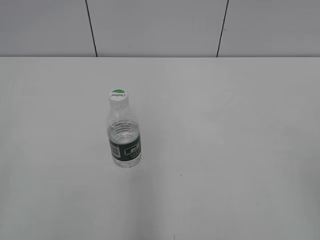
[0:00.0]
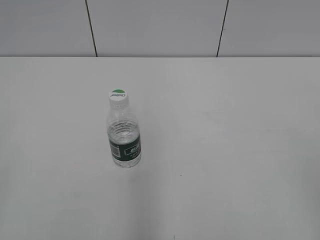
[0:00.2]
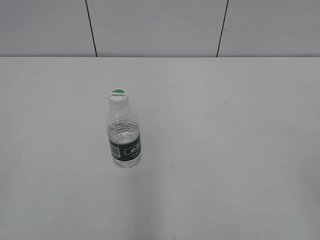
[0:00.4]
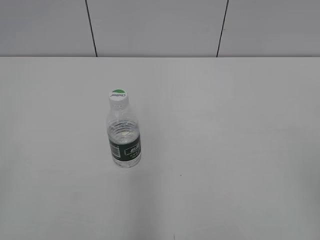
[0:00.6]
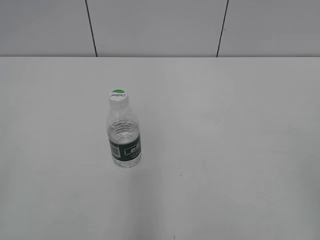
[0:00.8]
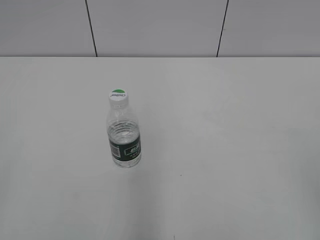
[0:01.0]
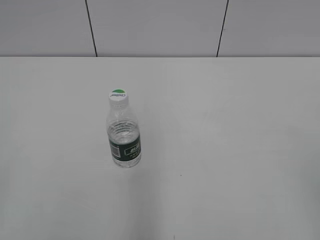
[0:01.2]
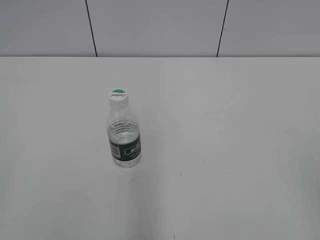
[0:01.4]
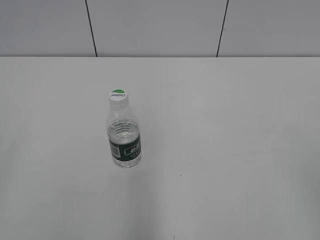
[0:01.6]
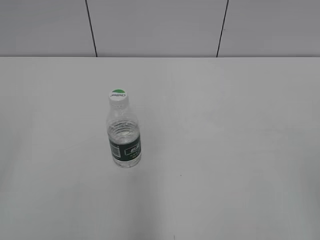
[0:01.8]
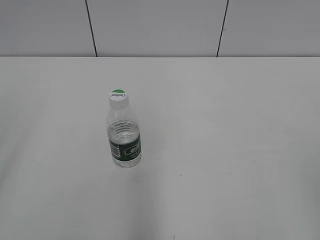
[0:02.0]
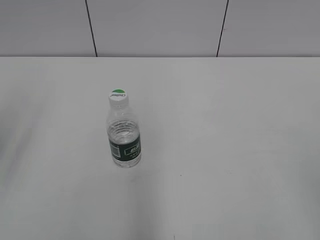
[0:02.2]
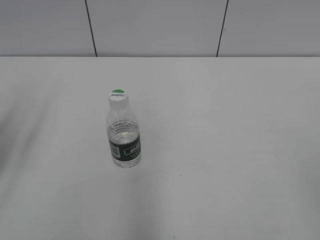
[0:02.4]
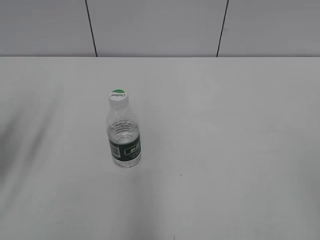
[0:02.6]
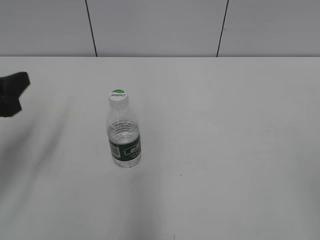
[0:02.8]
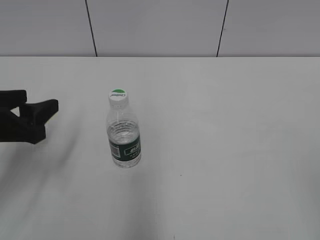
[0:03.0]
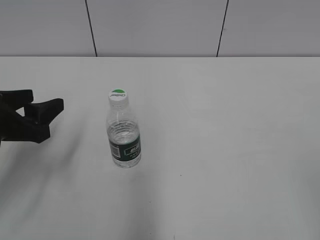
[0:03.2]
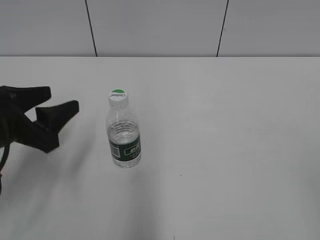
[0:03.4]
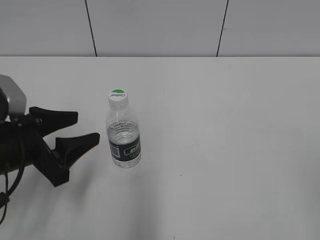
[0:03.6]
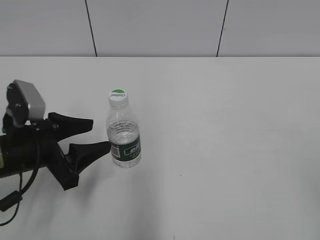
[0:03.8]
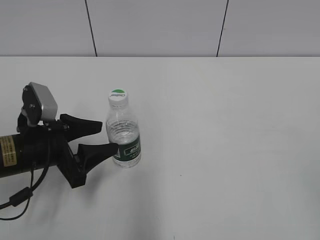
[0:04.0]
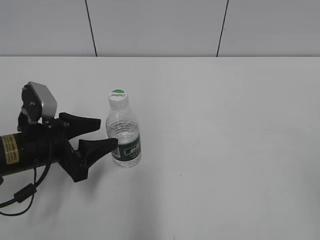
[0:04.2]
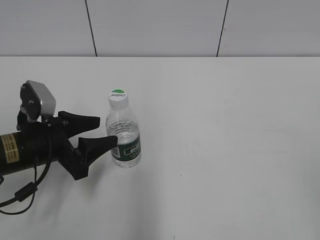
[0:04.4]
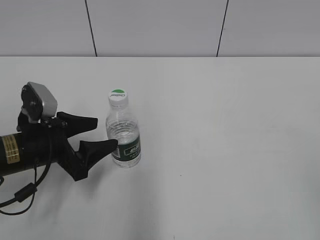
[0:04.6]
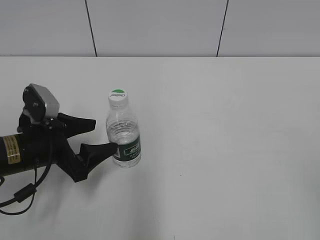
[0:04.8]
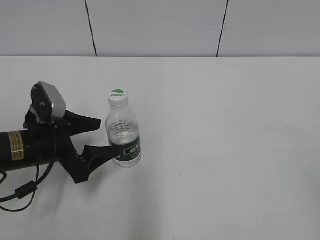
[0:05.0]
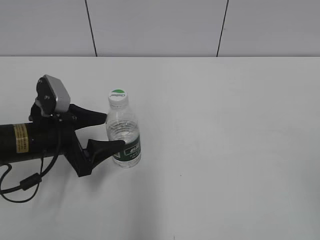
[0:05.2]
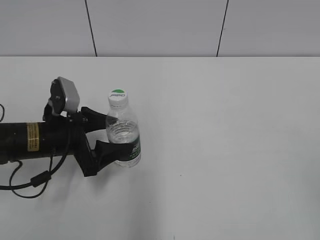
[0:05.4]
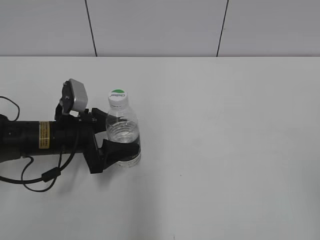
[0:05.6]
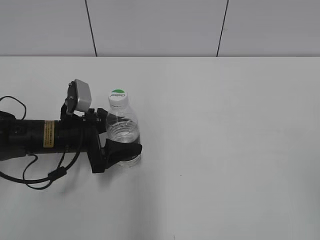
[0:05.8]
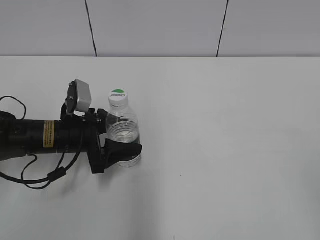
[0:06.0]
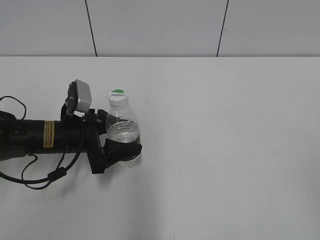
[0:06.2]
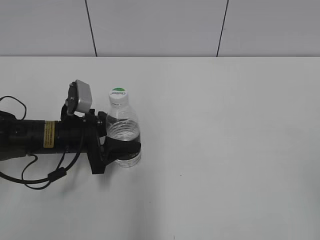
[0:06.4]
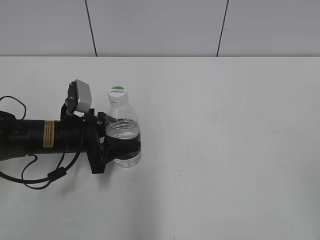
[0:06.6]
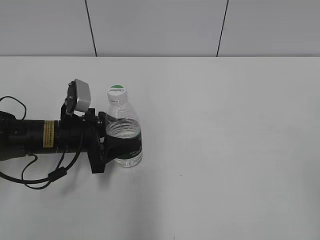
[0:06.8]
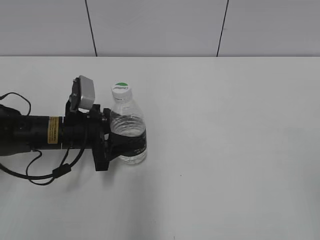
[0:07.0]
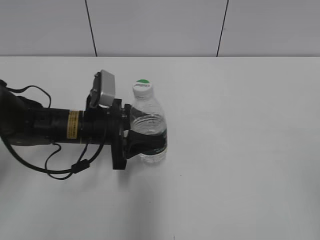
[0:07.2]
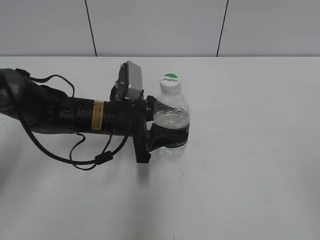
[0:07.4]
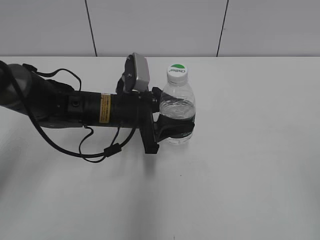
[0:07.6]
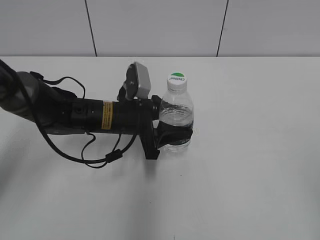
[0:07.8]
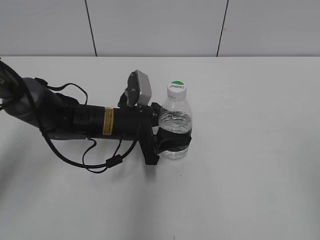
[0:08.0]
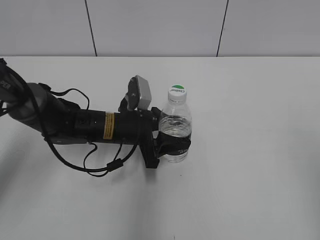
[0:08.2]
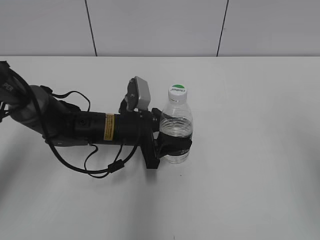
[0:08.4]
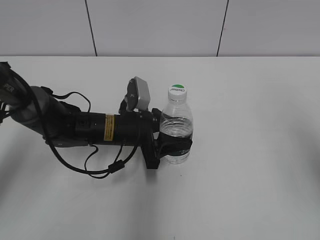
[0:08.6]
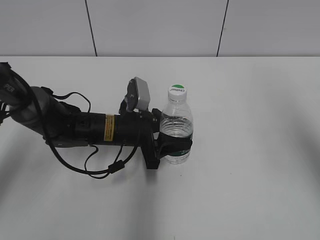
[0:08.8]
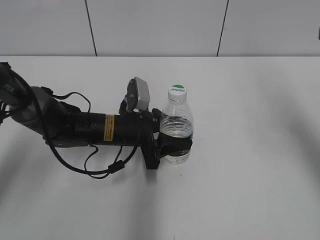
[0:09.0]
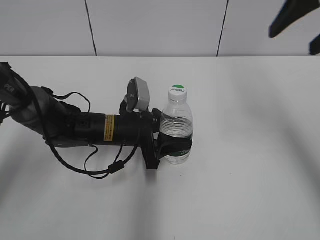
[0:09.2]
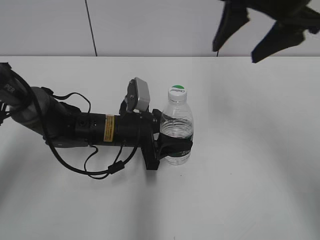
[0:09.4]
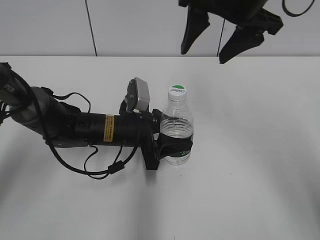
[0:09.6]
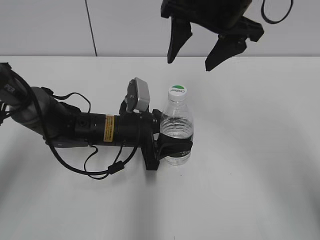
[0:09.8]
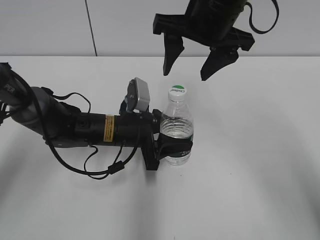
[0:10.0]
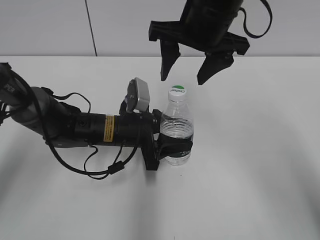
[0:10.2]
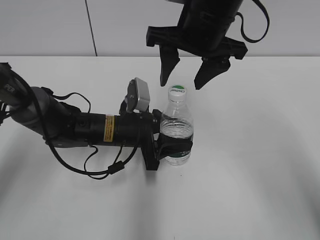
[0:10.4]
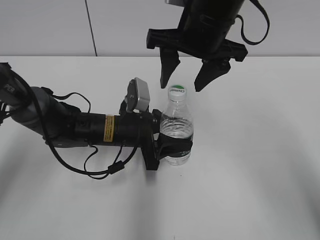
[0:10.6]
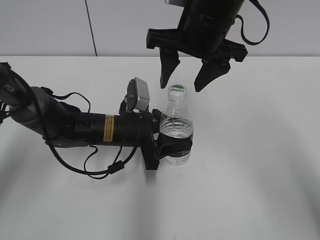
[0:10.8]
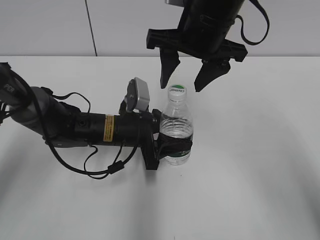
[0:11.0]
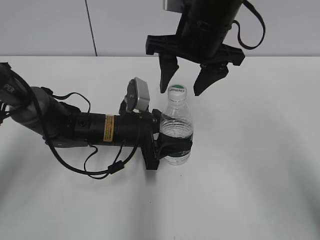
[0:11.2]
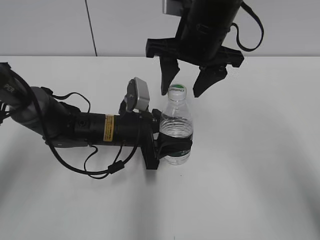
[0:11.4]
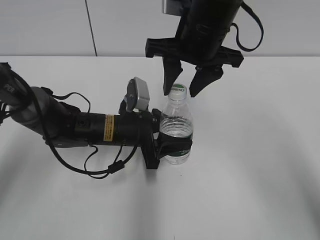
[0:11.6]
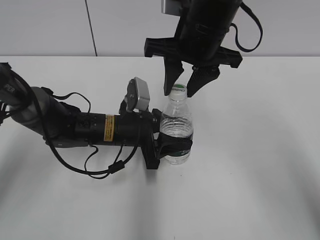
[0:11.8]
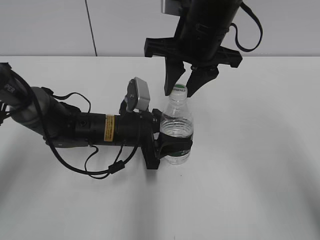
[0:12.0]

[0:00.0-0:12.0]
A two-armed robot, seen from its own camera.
Step, 0:00.0 to 0:06.2: Grasp the bottle and move it to the center of the table with the left gripper.
Step, 0:06.4 to 0:08.4: Lift the bottle and move it to the center of the table with the left gripper.
0:01.6 to 0:03.0: The left gripper shifts roughly 25 cm forward and downward.
0:03.0 to 0:04.4: The left gripper heads downward, covering roughly 5 cm.
0:04.4 to 0:06.0: The left gripper travels forward by some 5 cm.
0:06.0 to 0:07.6: The left gripper goes about 10 cm to the right, and closes its fingers.
0:07.6 to 0:09.0: The right gripper heads forward, covering some 25 cm.
0:09.0 to 0:10.4: The right gripper heads to the left and downward, covering about 20 cm.
0:10.4 to 0:12.0: The right gripper closes up.

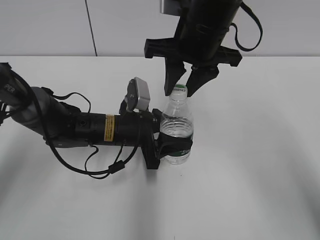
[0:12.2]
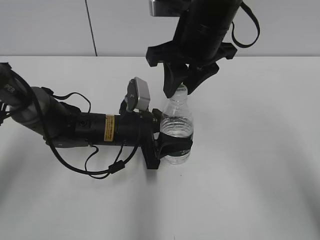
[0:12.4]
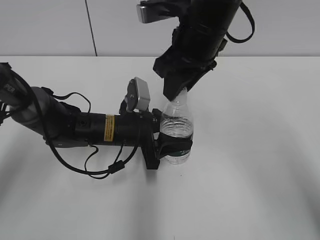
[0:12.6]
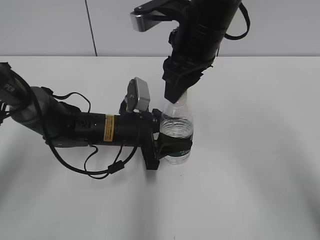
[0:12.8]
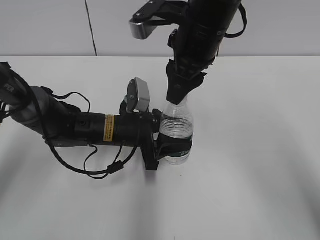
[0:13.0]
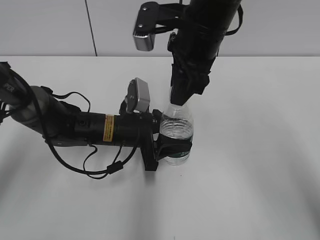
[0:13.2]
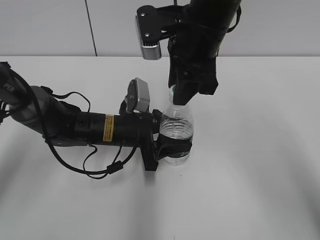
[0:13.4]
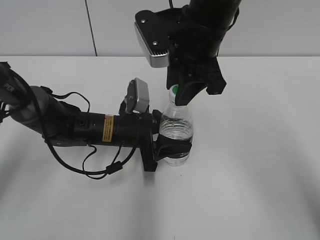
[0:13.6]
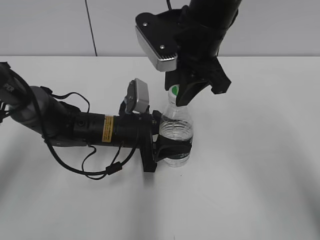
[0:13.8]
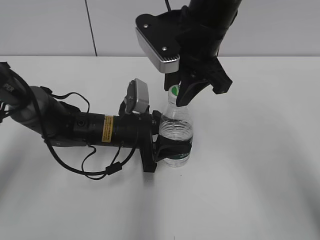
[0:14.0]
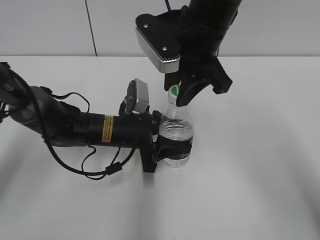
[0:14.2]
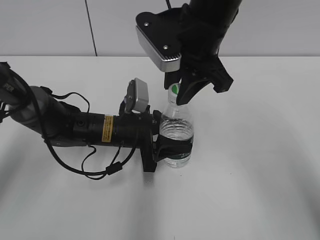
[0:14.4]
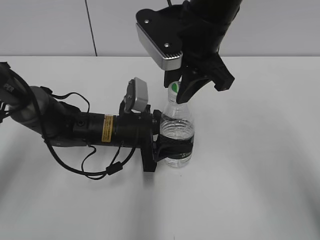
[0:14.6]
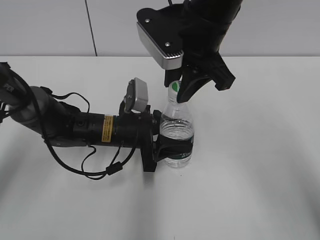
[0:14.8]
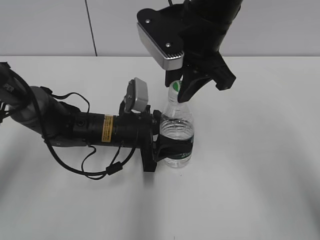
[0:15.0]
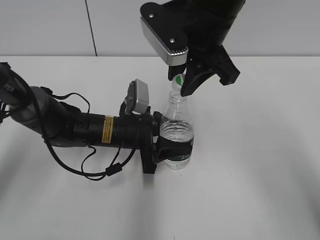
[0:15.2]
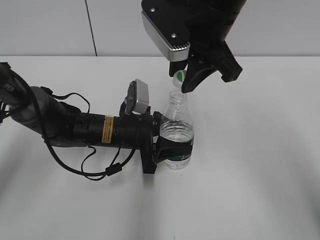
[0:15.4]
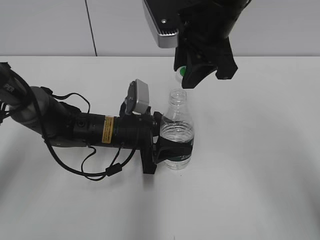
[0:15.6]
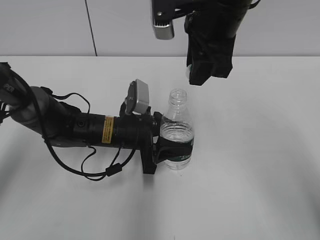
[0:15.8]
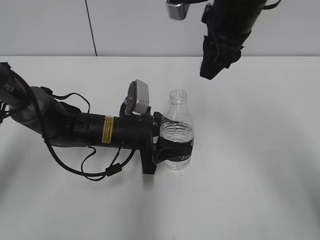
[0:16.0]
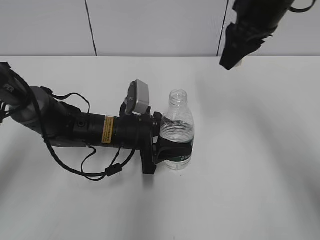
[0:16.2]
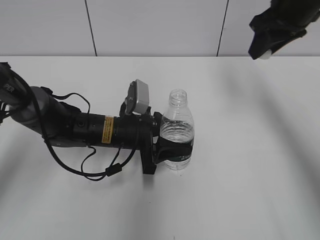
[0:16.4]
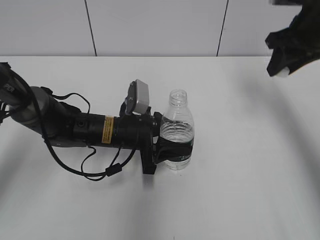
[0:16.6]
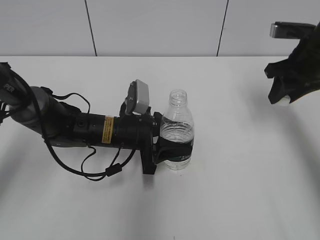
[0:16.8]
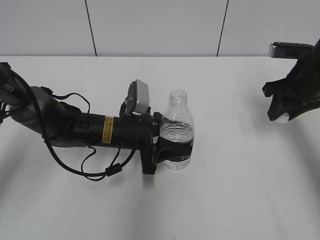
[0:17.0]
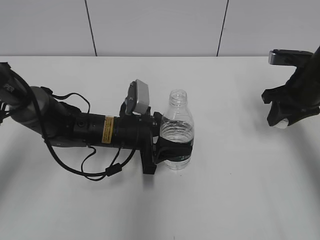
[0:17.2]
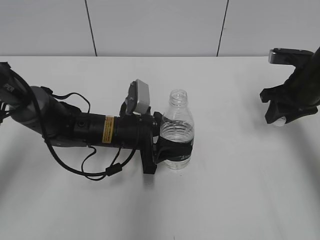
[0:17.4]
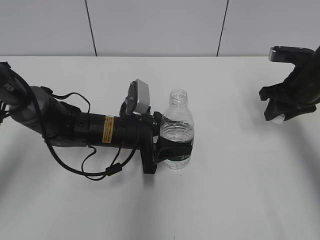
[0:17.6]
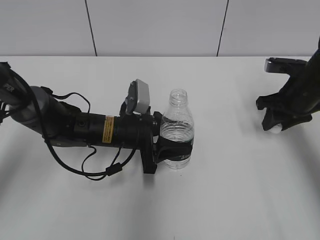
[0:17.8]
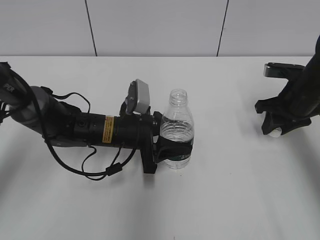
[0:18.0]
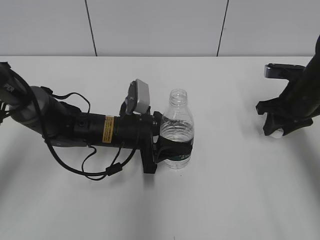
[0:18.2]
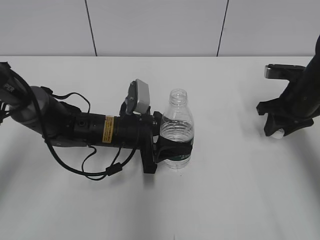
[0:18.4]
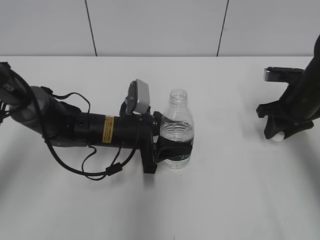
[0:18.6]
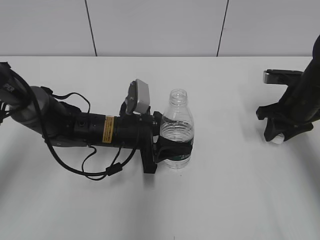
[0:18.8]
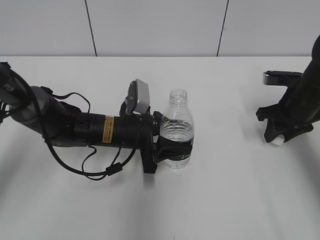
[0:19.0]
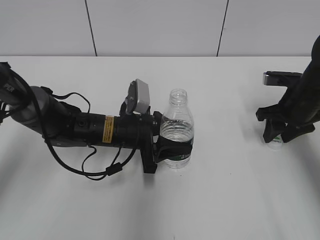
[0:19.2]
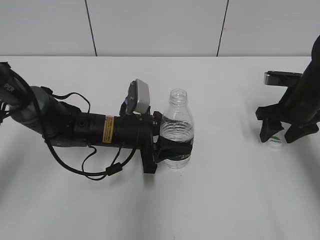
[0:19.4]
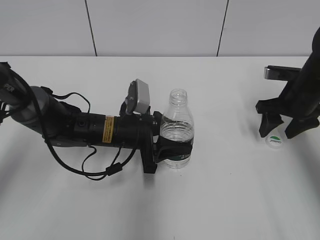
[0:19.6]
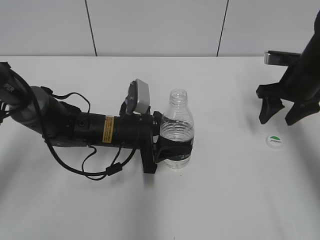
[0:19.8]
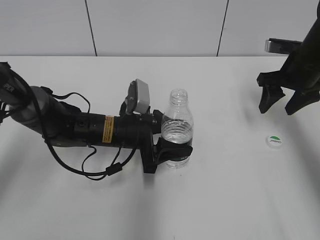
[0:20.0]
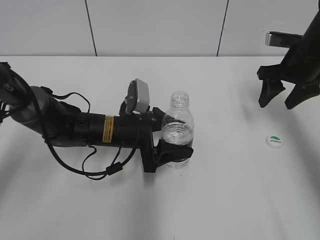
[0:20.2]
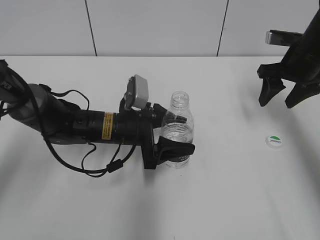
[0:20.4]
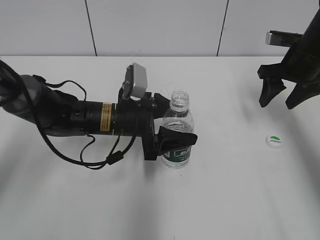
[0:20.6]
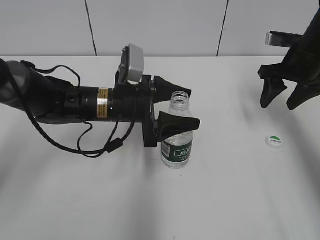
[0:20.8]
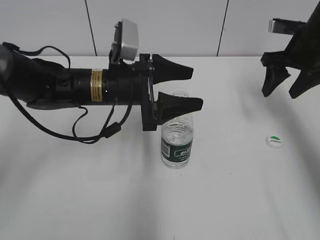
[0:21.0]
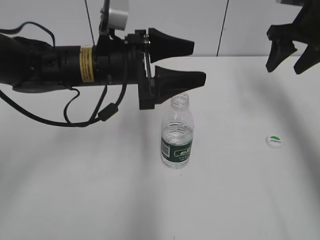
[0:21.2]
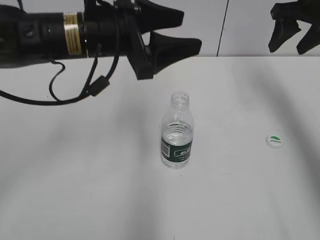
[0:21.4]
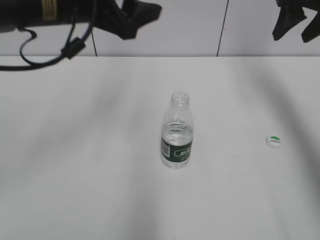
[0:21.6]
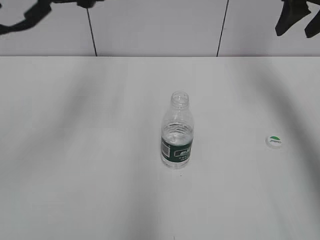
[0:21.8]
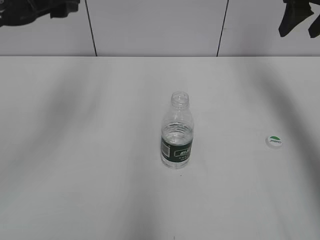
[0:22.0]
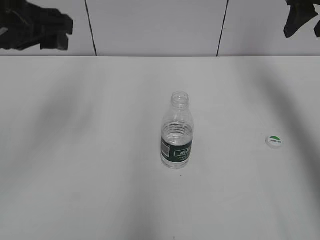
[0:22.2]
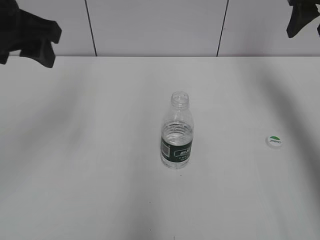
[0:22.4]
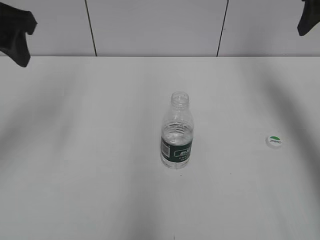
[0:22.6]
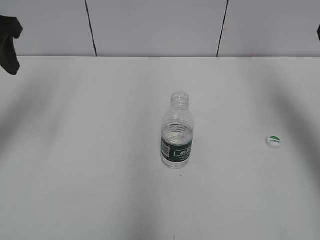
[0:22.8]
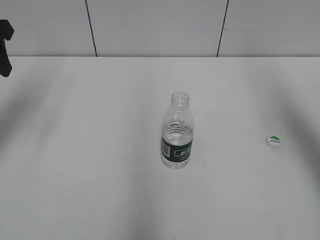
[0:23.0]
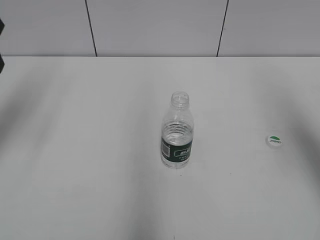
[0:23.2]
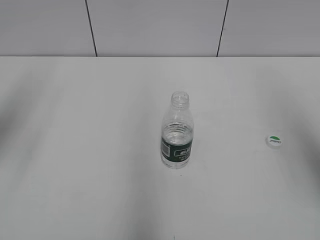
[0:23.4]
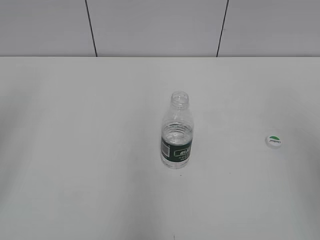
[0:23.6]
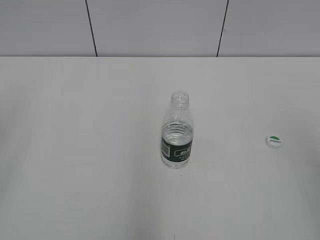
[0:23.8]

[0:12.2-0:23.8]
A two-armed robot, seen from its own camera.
Step, 0:12.2 to 0:15.6: Unscrew the bottle cap with the right gripper while holding the bottle with the left gripper.
Step, 0:15.8 to 0:19.4: Place the bottle cap on the table with the right gripper.
Step, 0:19.6 to 0:21.6: Place the bottle on the table with the left gripper.
0:13.6 to 0:15.0: The grippers stay close to where they were, moving slightly.
0:15.0 to 0:16.6: The right gripper moves to the right and forward, some 20 cm.
0:16.6 to 0:18.0: The right gripper travels downward by about 15 cm.
0:18.0 to 0:19.4: The right gripper opens its fingers.
0:19.4 to 0:21.0: The two grippers go some 10 cm upward. The left gripper opens up.
0:21.0 to 0:22.4: The right gripper shifts some 10 cm upward, while the left gripper shifts some 20 cm upward and to the left.
0:22.4 to 0:23.8: The left gripper goes about 20 cm backward and to the left. Meanwhile the right gripper shifts approximately 35 cm backward.
